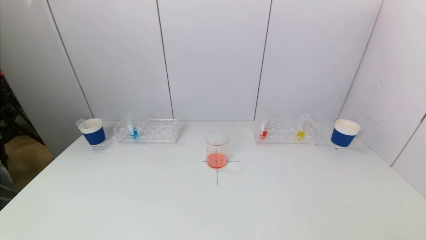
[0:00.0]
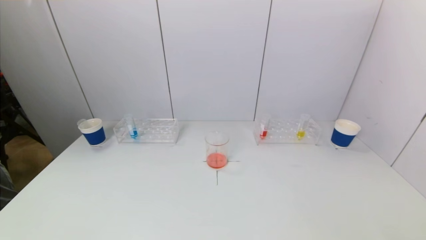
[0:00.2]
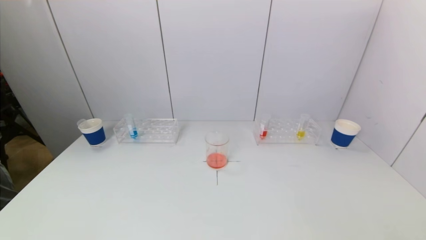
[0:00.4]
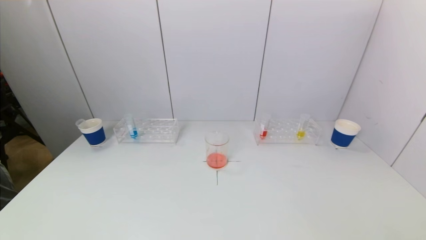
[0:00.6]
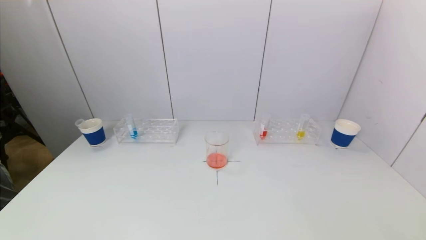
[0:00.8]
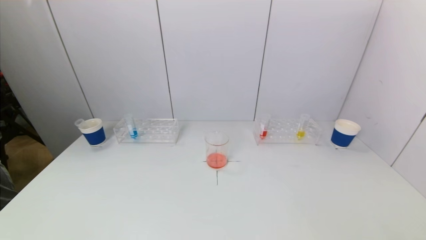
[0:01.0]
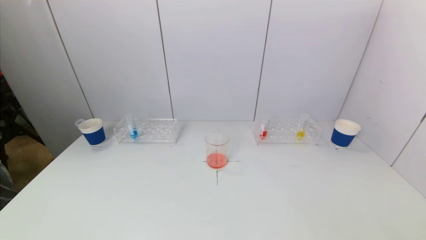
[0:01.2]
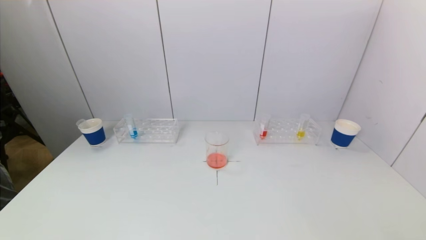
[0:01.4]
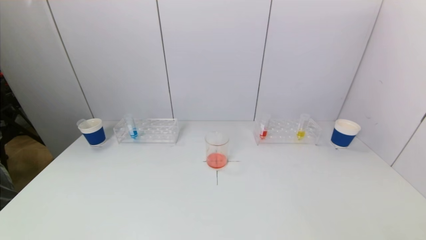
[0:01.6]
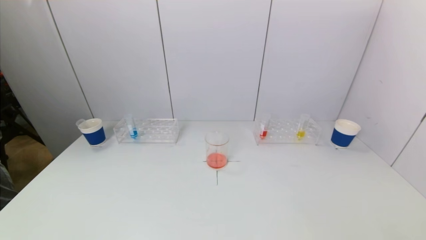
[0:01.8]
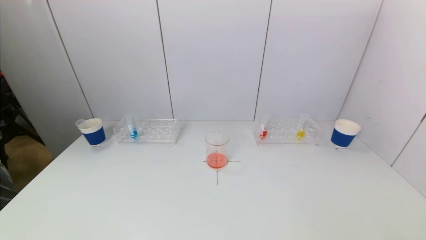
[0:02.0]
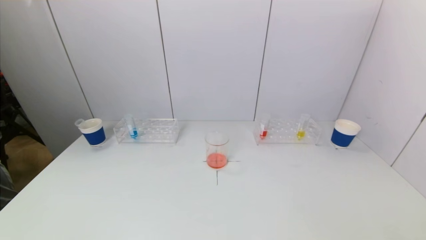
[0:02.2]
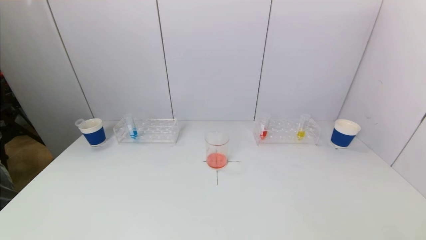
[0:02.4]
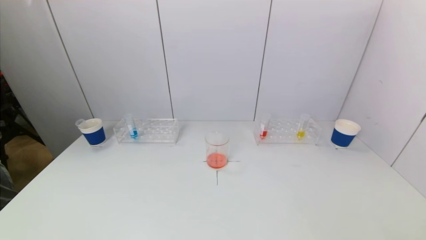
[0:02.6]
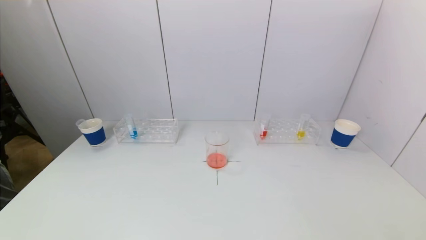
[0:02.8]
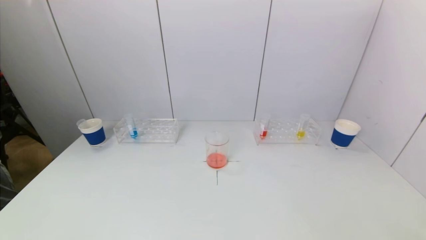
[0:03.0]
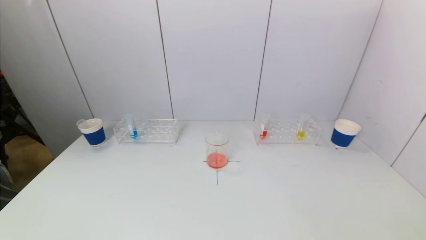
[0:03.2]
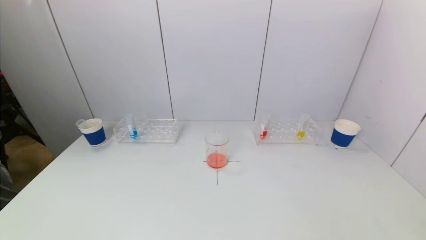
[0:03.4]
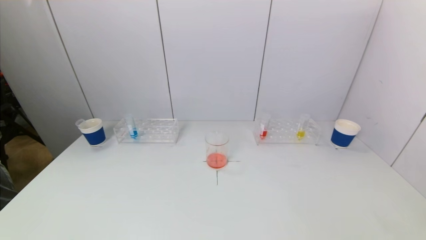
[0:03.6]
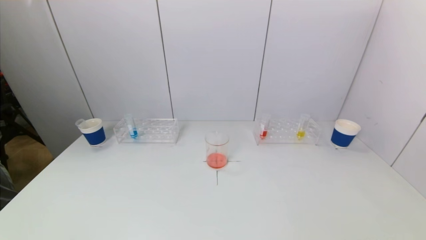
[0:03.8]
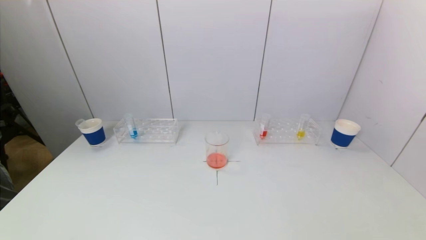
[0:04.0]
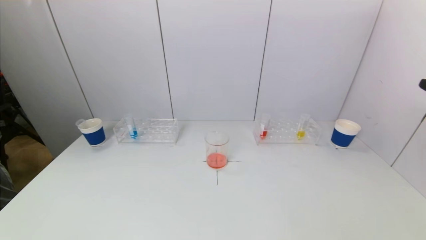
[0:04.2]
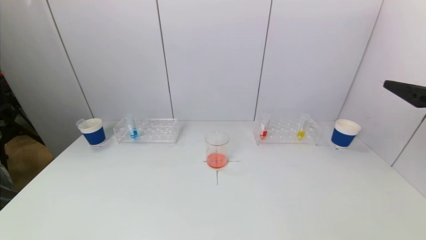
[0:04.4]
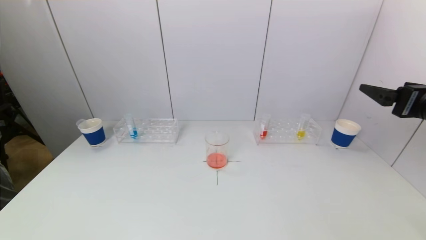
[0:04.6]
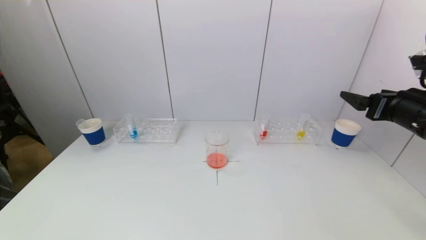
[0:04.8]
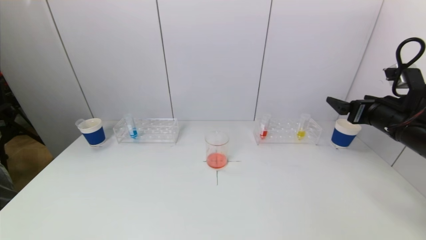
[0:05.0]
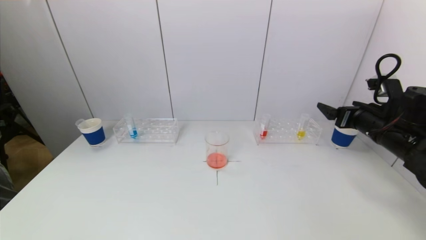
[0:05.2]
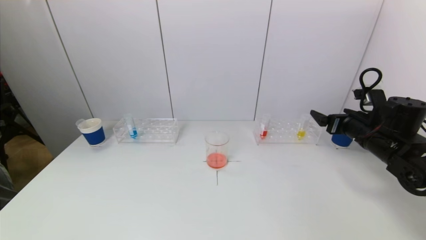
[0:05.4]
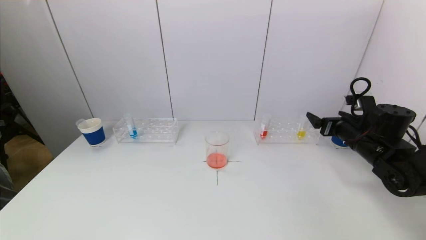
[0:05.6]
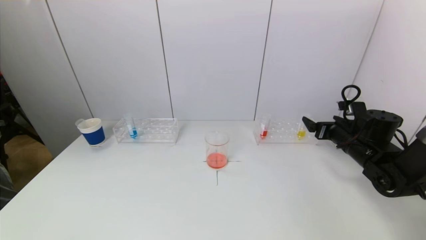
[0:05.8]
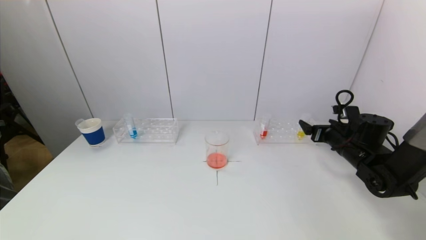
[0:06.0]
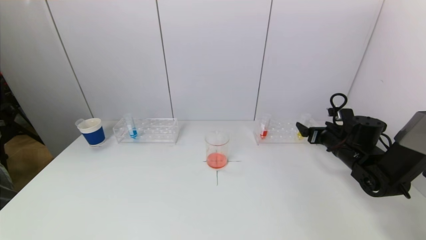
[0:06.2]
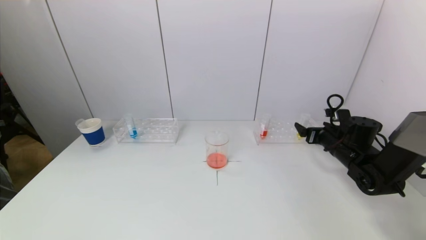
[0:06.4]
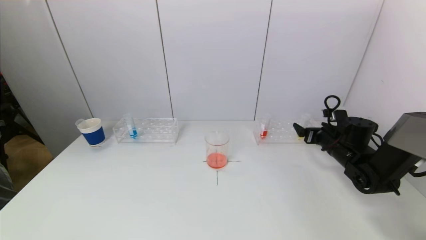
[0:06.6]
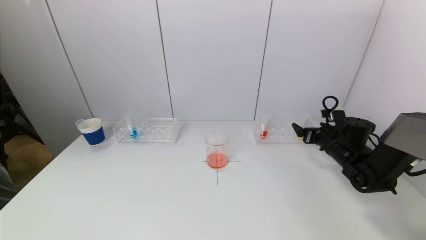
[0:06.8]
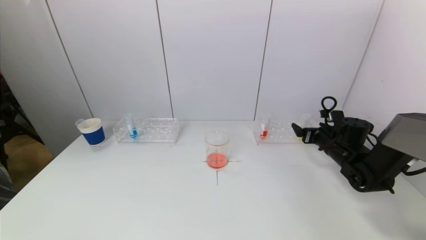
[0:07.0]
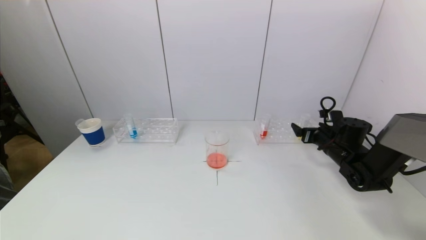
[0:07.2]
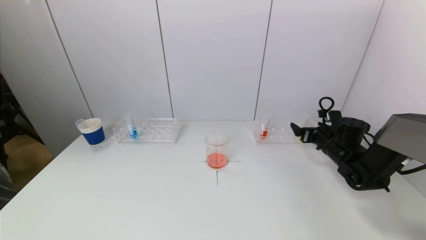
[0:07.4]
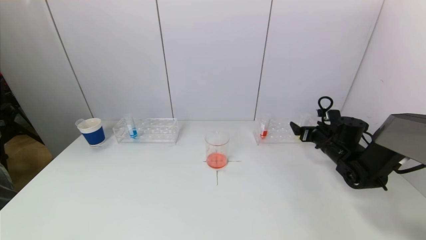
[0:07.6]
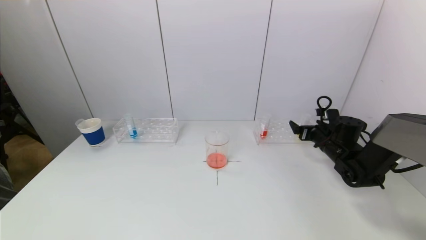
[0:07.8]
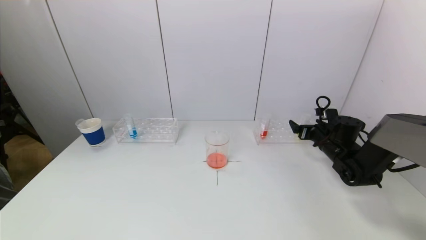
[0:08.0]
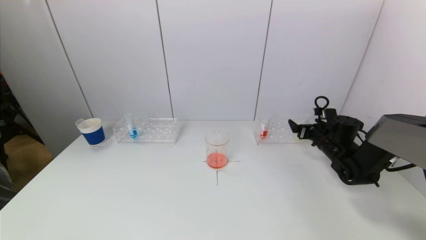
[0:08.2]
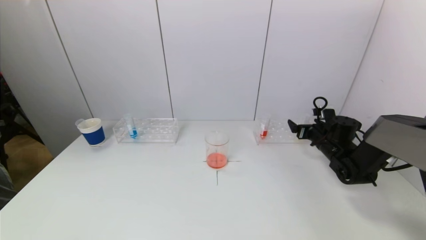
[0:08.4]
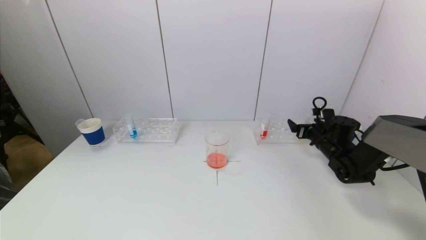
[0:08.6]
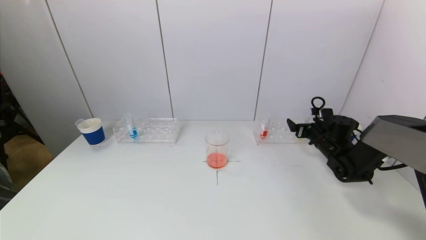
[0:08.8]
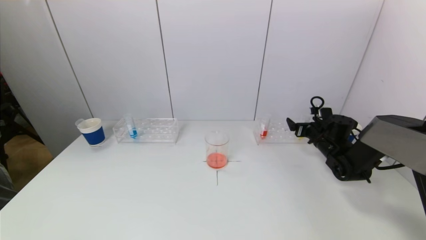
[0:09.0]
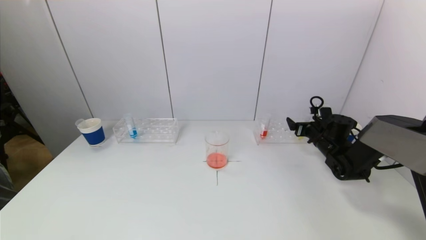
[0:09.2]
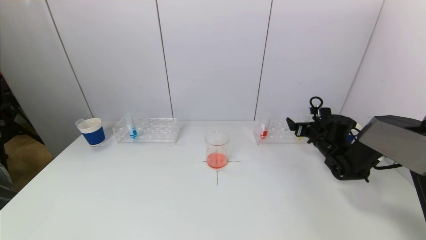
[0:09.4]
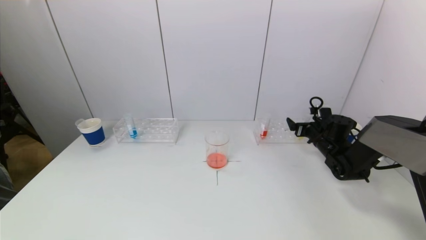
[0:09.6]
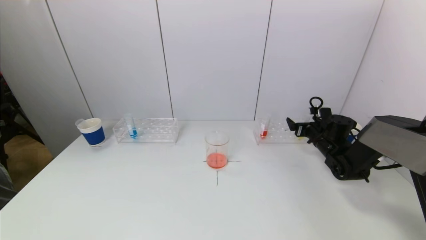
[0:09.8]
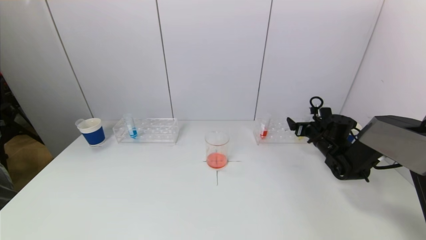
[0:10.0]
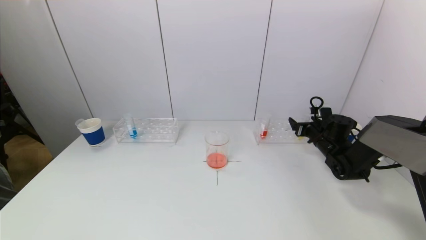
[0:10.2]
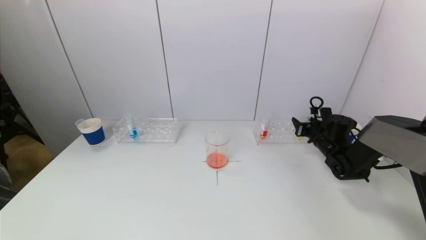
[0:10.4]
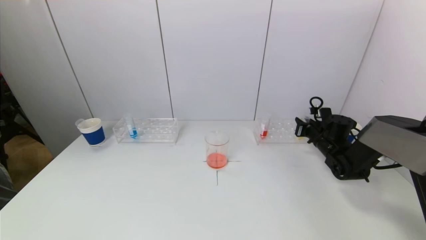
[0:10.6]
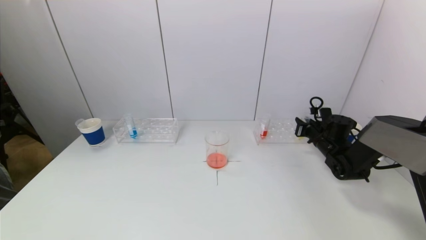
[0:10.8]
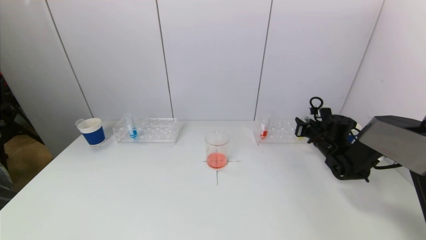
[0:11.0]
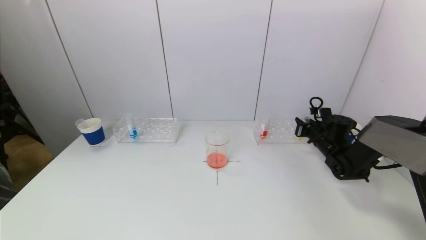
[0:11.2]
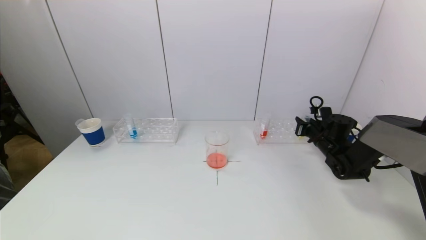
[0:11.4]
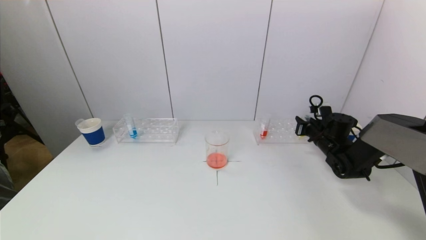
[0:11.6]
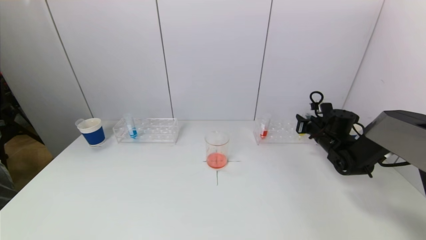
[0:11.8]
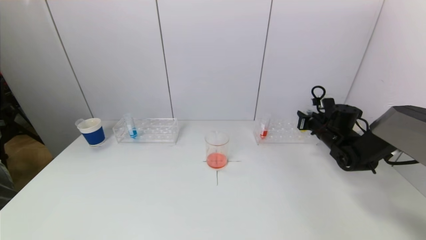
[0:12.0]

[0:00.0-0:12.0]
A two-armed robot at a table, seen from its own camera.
Task of the whole recording: pick up a test tube with pigment on left test tube rack and a test tube with pigment on right test tube rack by grippers and pour them into the beaker.
Step, 0:00.0 to 0:11.0: Grasp the yellow reagent with the right gripper.
0:03.0 to 0:04.4: The right gripper moves forward and upward, about 25 cm.
0:04.4 to 0:06.0: The right gripper is displaced downward and forward by some 30 cm.
0:06.0 to 0:07.6: The right gripper moves roughly 5 cm.
0:07.6 to 0:09.0: The grippers move only a little.
0:09.0 to 0:10.4: The right gripper closes.
0:10.4 to 0:12.0: The right gripper closes its fingers.

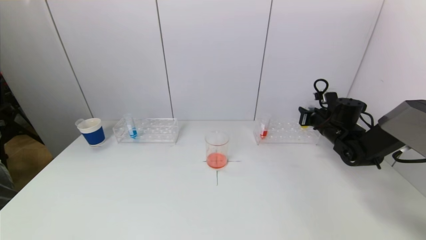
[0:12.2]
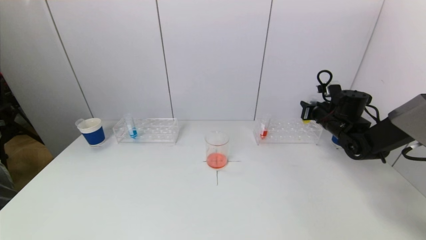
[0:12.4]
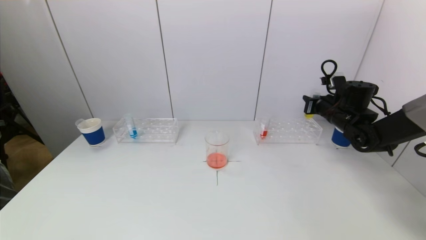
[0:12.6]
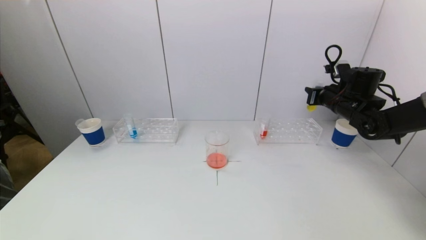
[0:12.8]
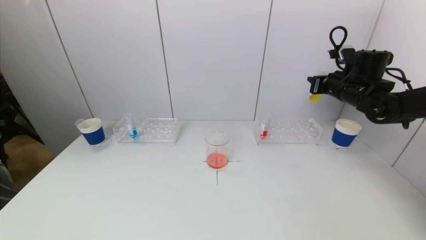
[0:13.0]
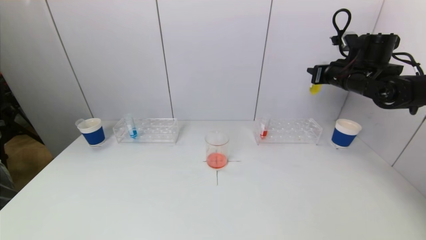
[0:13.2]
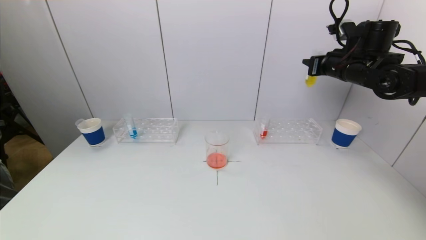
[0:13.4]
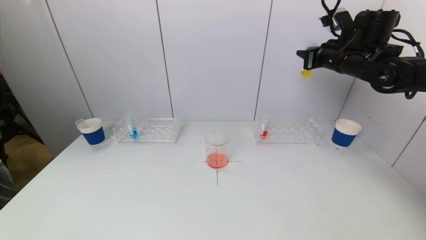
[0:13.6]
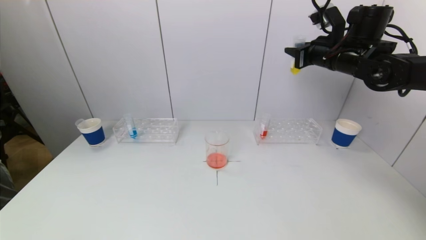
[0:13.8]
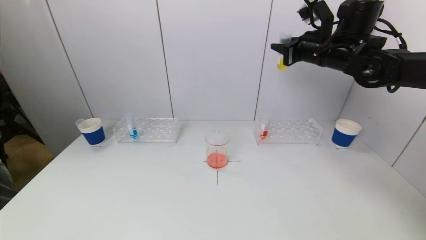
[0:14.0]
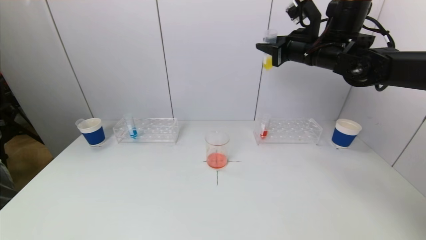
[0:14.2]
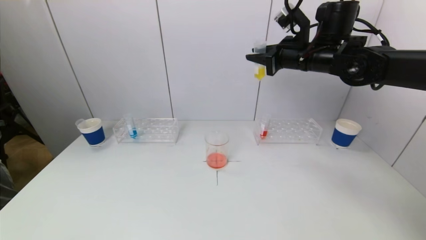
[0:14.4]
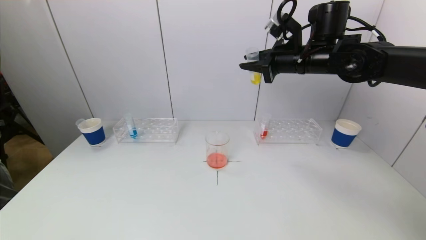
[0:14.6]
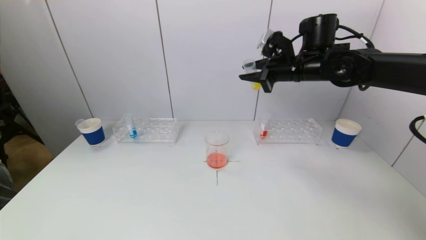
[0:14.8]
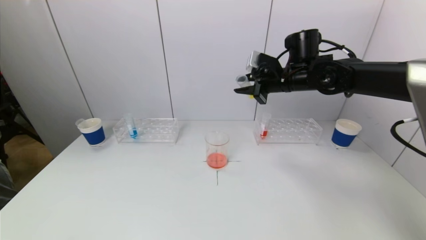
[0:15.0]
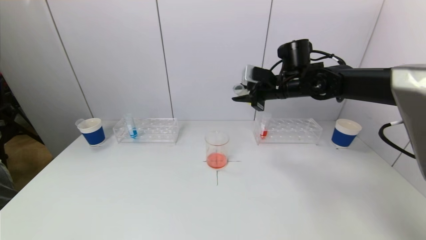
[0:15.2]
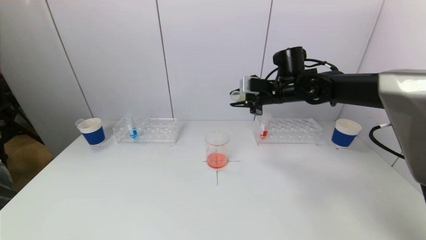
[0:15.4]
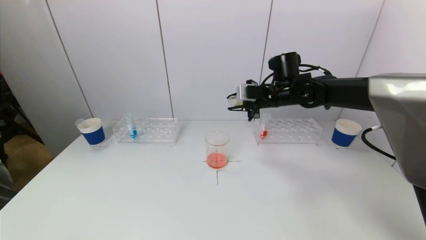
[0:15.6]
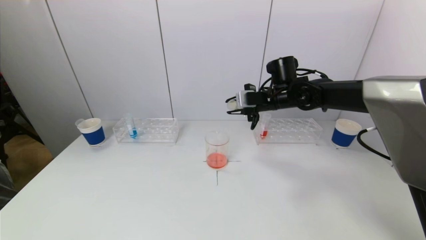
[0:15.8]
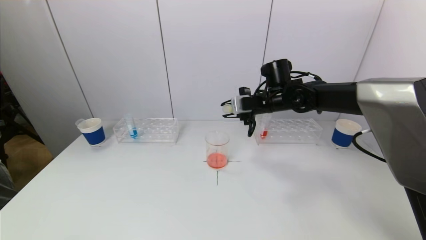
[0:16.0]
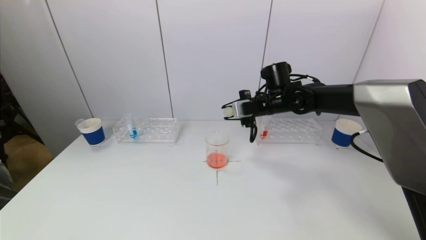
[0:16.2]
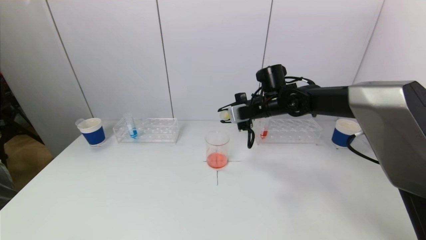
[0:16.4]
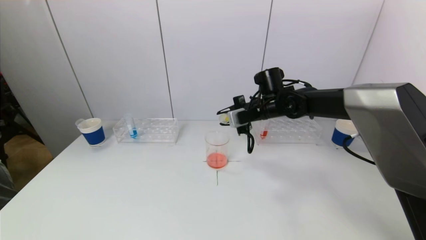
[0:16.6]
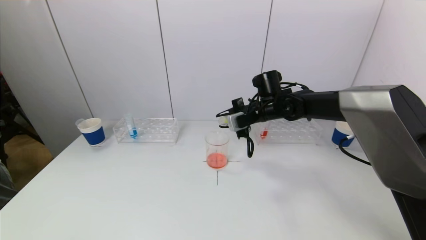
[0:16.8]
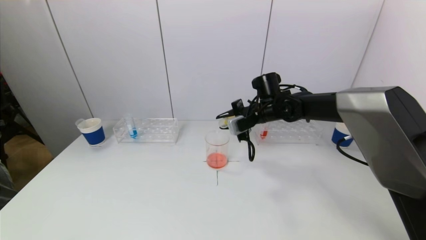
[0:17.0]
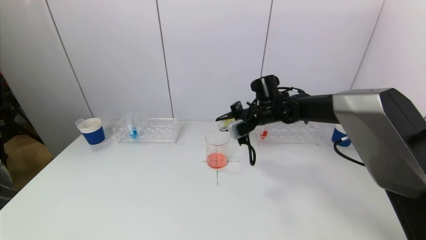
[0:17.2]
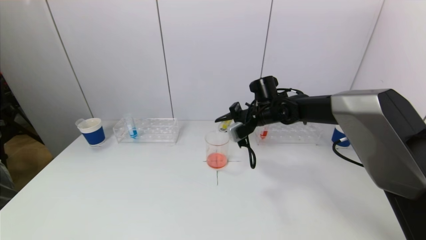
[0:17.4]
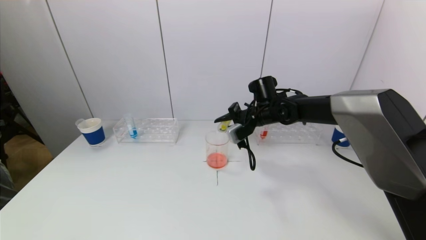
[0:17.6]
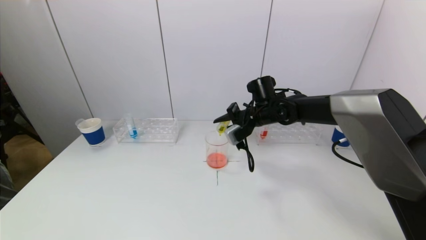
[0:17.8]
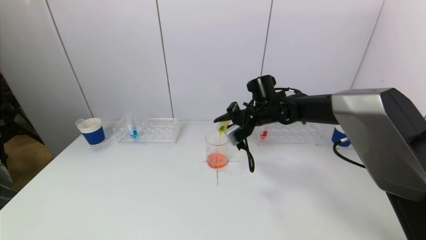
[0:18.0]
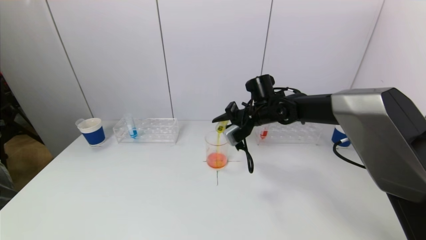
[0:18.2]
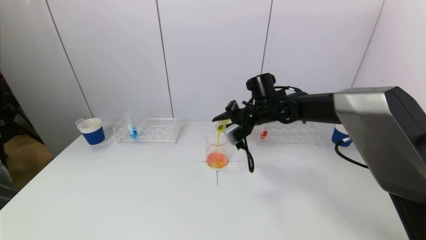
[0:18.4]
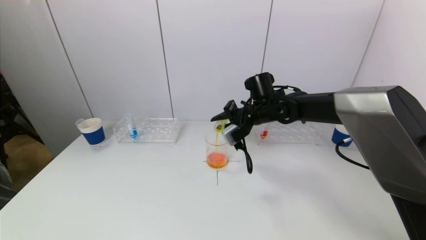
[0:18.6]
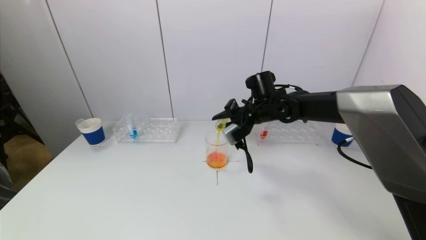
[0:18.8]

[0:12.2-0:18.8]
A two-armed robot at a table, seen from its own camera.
Task of the whole recording: pick up a test tube with pigment on left test tube rack and a test tube with pigment on right test tube rack by grippers and pour them into the beaker.
0:12.2 to 0:13.8: The right gripper moves upward, about 20 cm.
0:13.8 to 0:15.4: The right gripper travels to the left and downward by roughly 15 cm.
0:15.4 to 0:17.2: The right gripper travels downward by roughly 5 cm.
0:17.2 to 0:18.8: The grippers move only a little.
